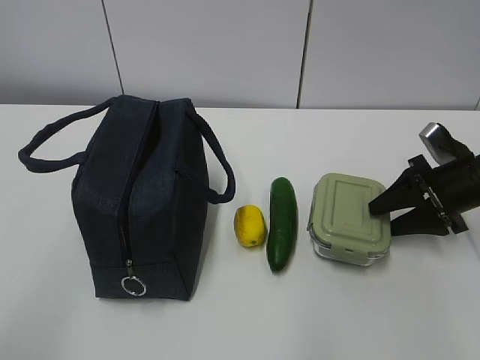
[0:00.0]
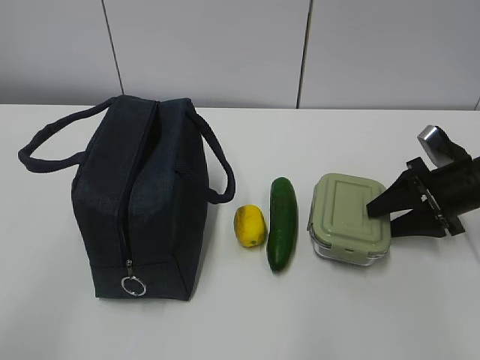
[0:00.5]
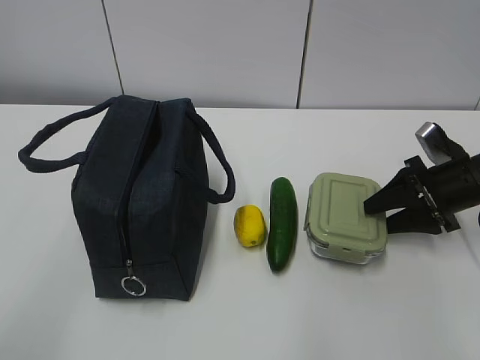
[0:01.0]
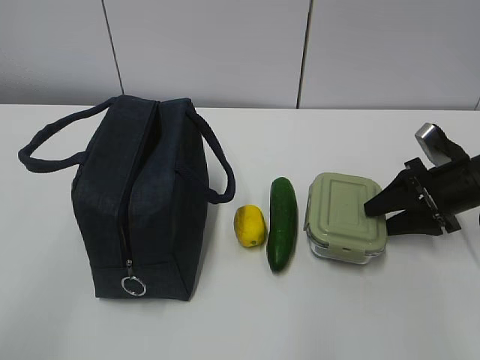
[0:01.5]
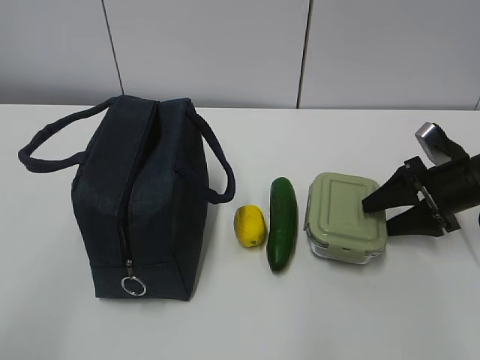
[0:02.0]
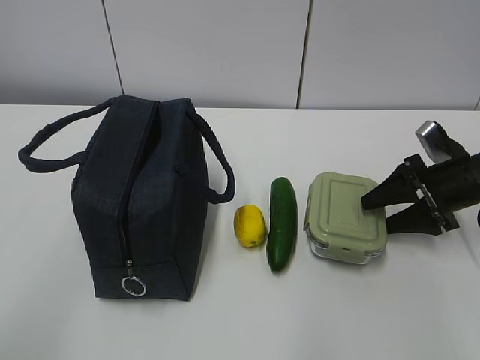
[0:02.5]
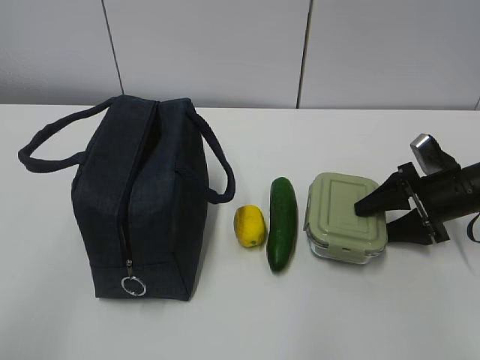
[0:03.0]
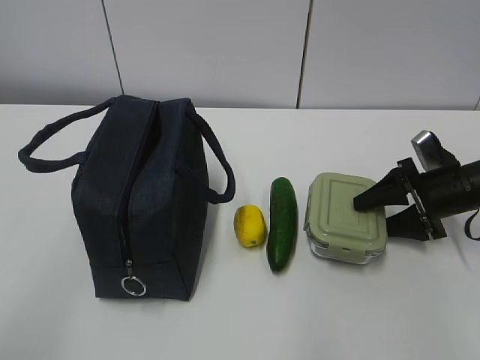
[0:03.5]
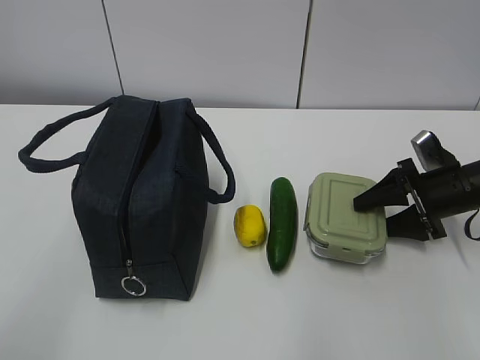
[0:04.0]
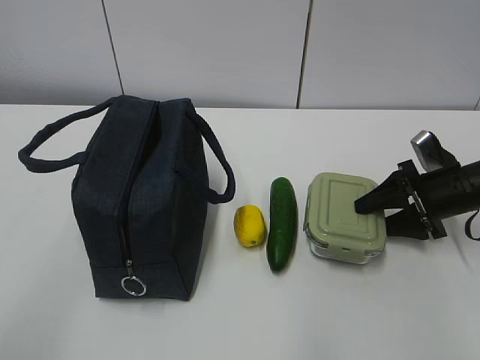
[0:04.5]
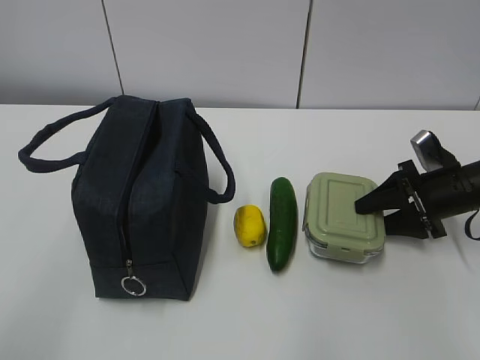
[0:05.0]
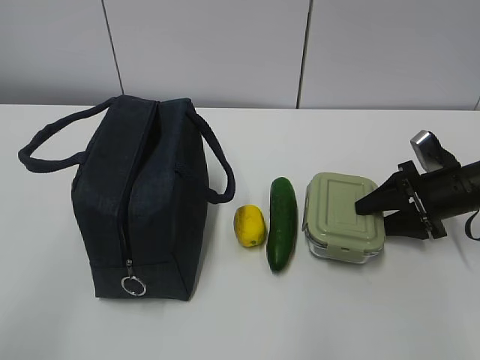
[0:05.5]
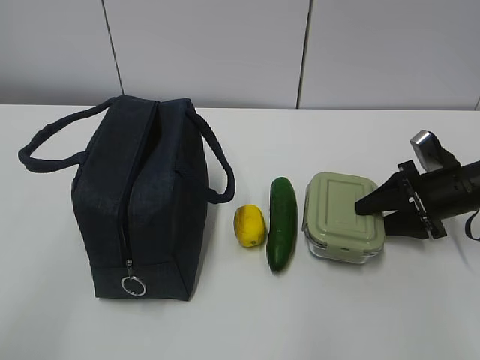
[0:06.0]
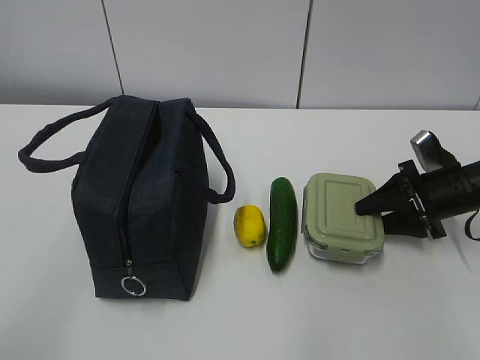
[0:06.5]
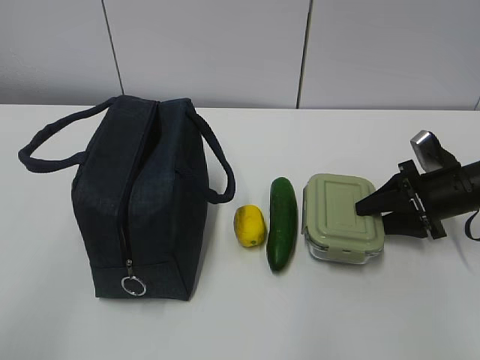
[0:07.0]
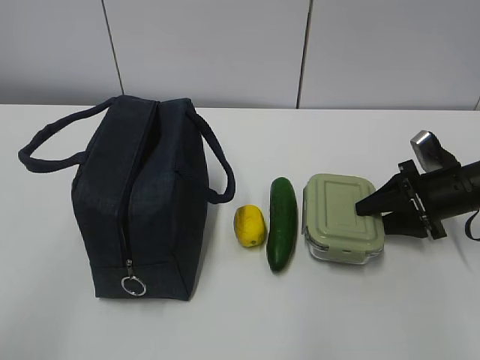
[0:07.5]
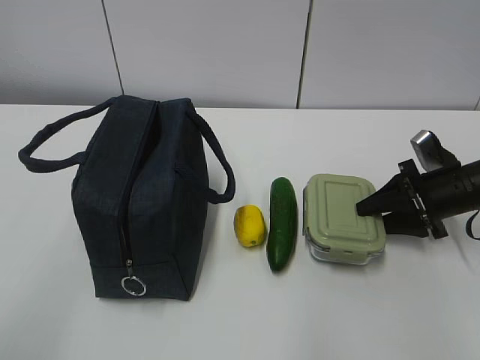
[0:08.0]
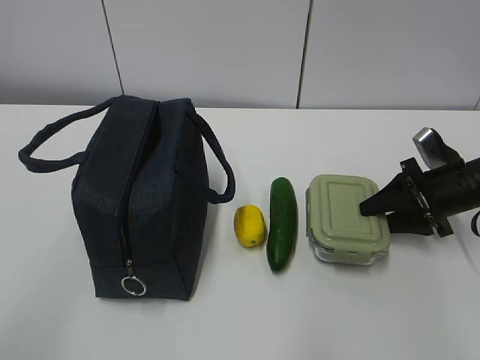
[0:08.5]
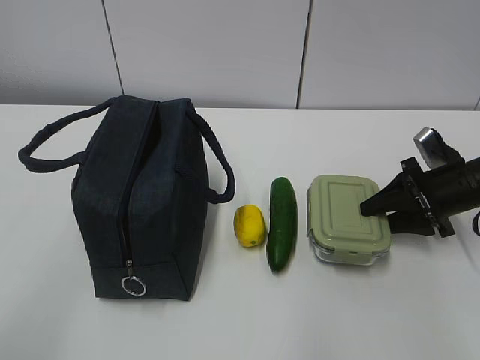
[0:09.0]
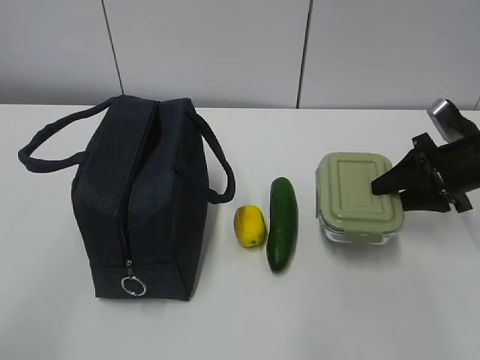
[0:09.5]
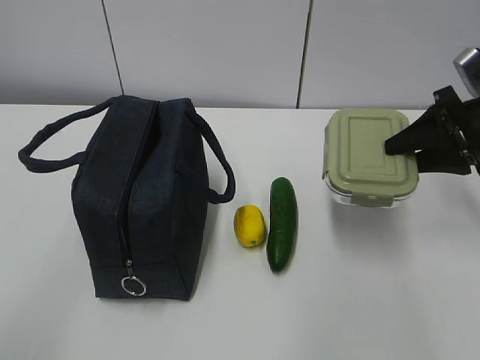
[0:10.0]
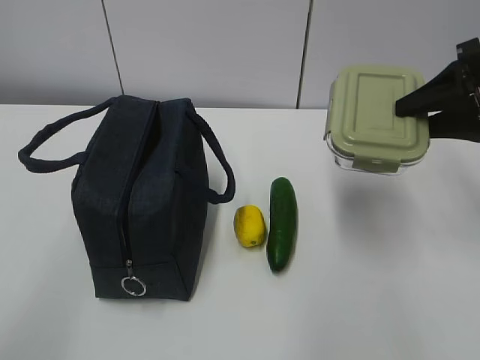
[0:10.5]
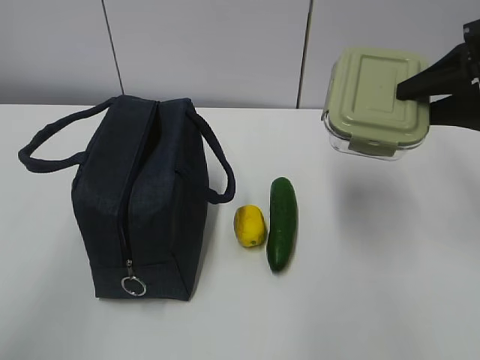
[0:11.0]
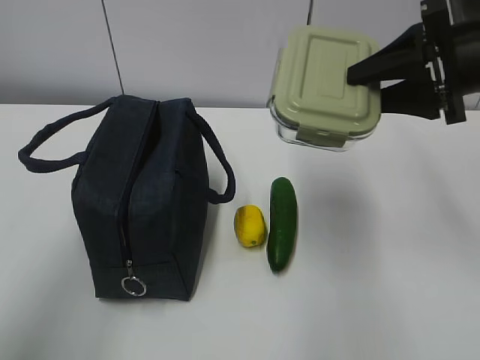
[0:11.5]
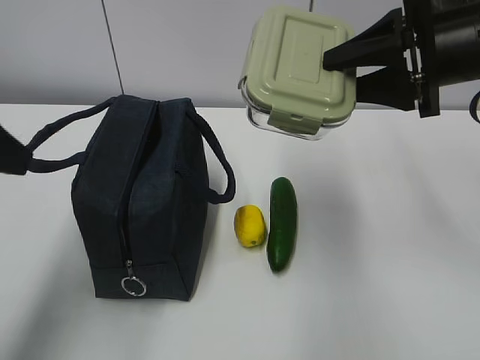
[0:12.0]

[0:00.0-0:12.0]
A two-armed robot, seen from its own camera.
Step, 0:00.0 to 0:07.5: Grasp the box with the right gripper.
0:00.0 to 0:02.0: Neither gripper changes place.
0:02.0 to 0:04.0: The grippers stay close to where they were, moving slightly.
0:04.0 to 0:08.0: The two grippers keep their place.
0:08.0 to 0:10.0: The right gripper moves upward, about 10 cm.
0:10.0 to 0:12.0: The right gripper heads upward and to the left, covering roughly 15 cm. The left gripper goes some 20 cm forward.

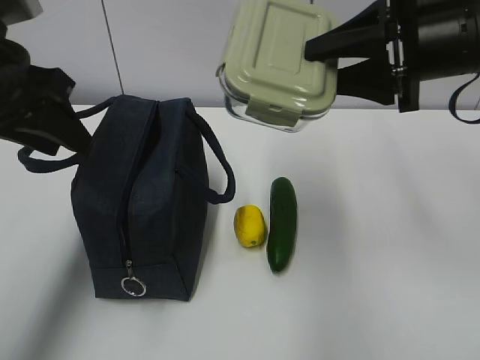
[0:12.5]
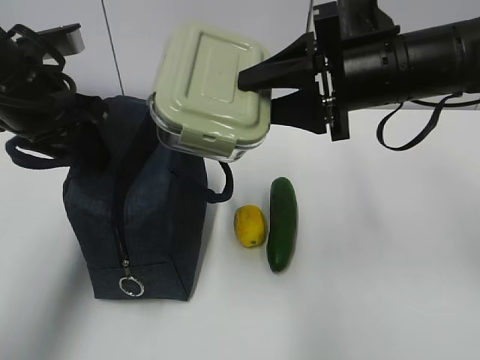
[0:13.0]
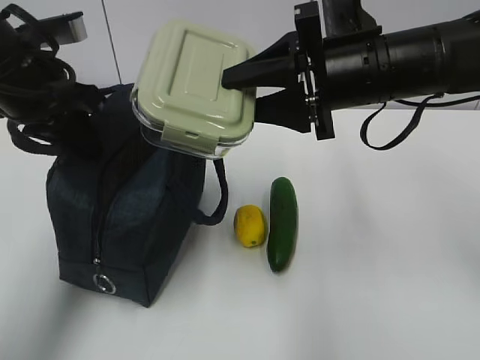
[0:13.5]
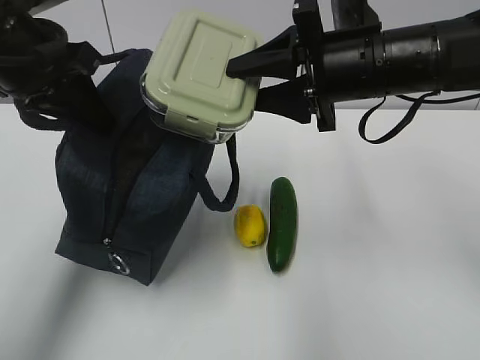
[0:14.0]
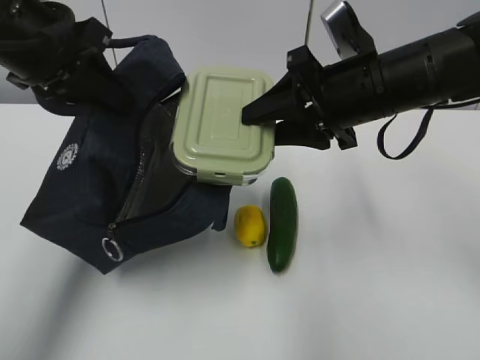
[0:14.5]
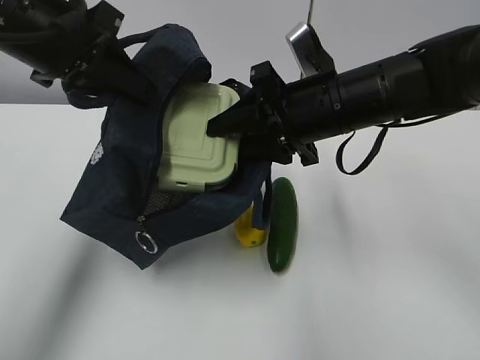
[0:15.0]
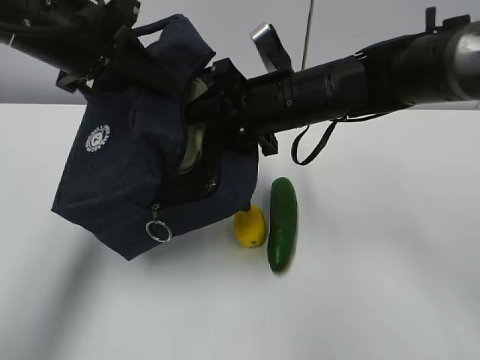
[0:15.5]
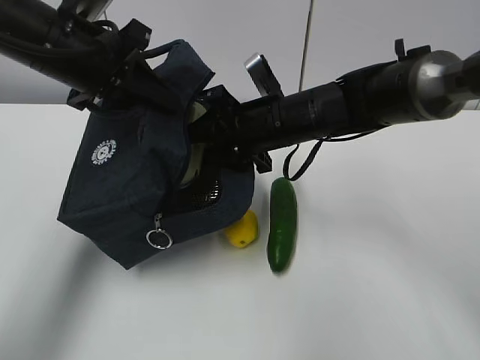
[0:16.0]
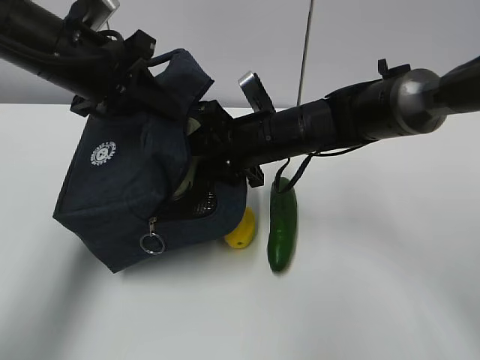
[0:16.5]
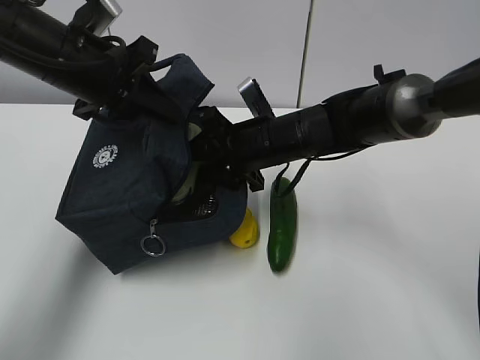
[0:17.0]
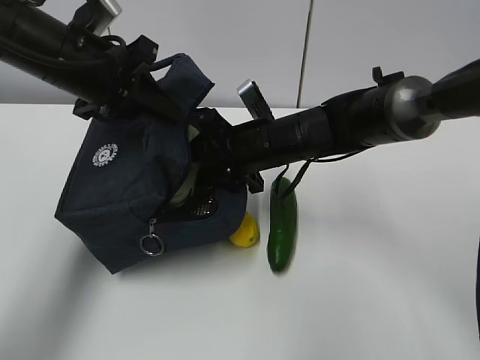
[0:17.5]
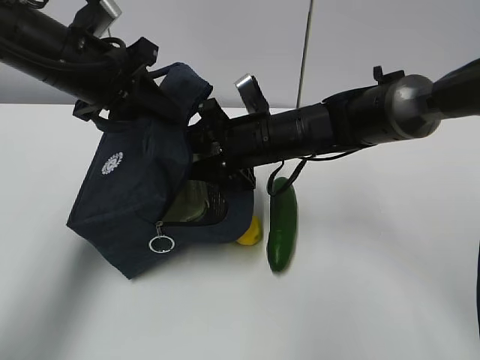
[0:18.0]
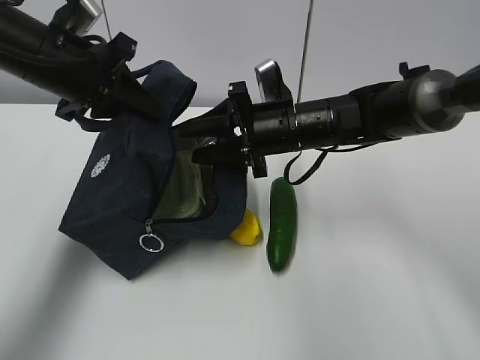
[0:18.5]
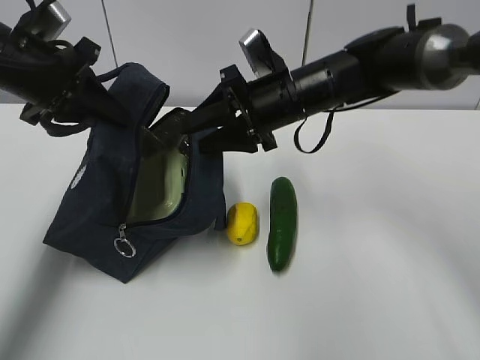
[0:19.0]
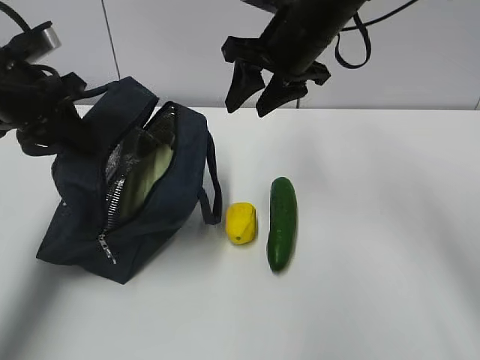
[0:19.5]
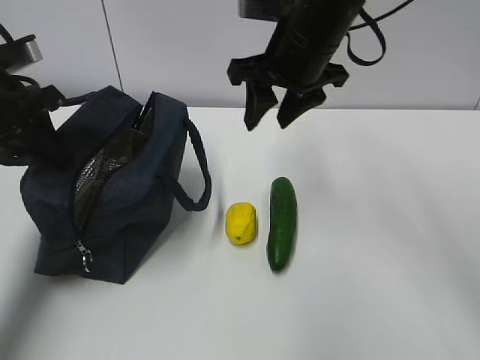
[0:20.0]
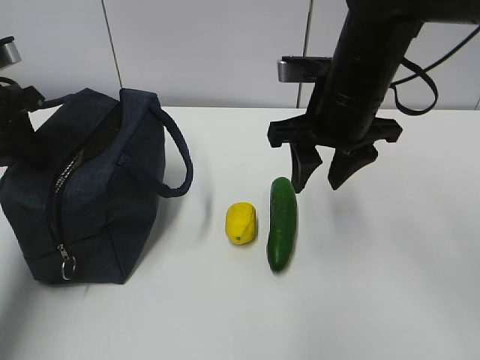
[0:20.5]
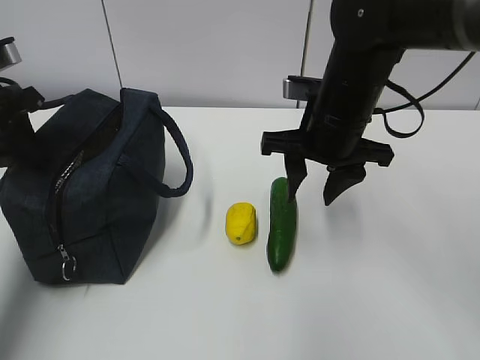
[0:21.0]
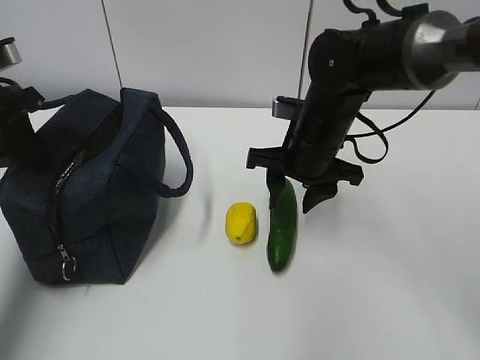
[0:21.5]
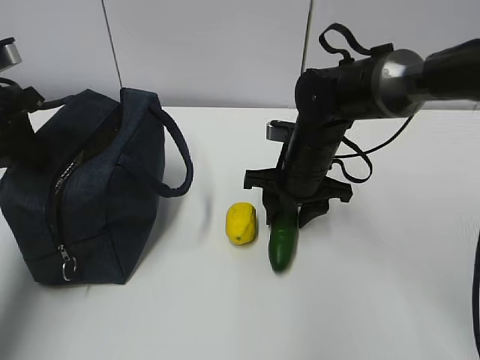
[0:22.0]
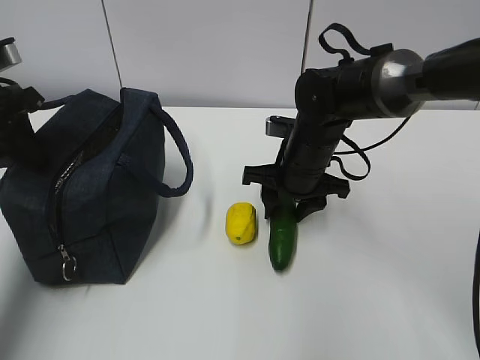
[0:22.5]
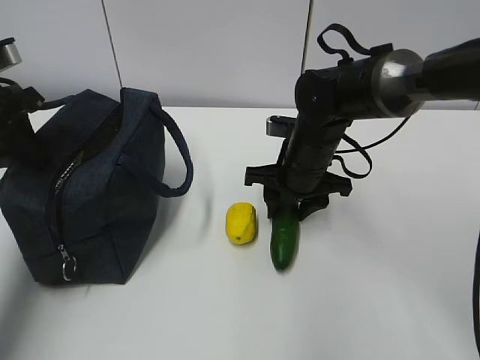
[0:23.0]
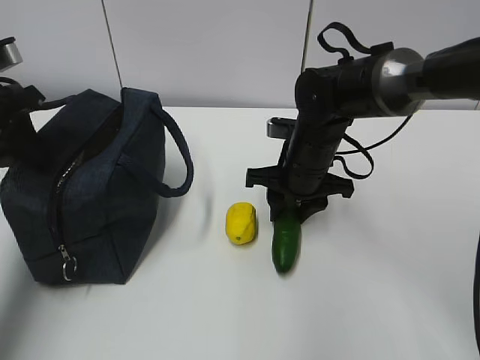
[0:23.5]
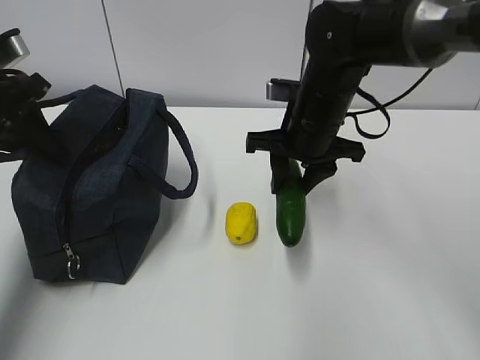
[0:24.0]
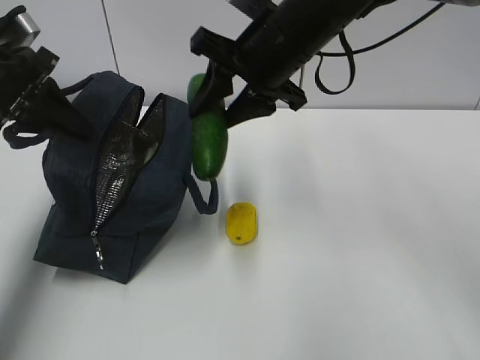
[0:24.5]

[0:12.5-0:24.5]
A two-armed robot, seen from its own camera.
Step, 0:12.5 to 0:18.5: Place the box into the package with the right gripper.
Step, 0:19.0 to 0:23.0: Grasp the cucumber with the right gripper.
0:12.5 to 0:14.5: The right gripper moves to the left and downward, approximately 10 cm. Meanwhile the left gripper closes its fingers.
0:14.5 to 0:16.5: The right gripper is displaced downward, to the left and forward by some 15 cm. The left gripper ends up approximately 5 cm from where it was.
0:16.5 to 0:18.5: The grippers move only a little.
0:18.5 to 0:20.5: The right gripper goes roughly 10 cm upward and backward, while the left gripper is displaced to the left by approximately 10 cm.
0:20.5 to 0:22.5: The right gripper shifts some 15 cm downward and forward.
0:22.5 to 0:24.5: The right gripper goes roughly 15 cm upward.

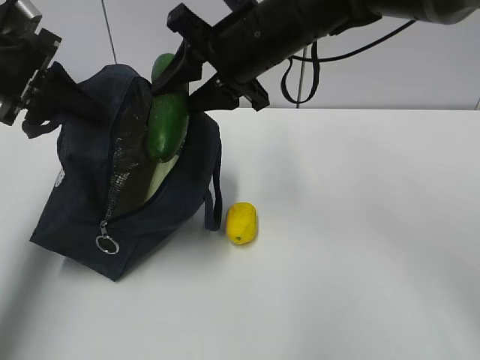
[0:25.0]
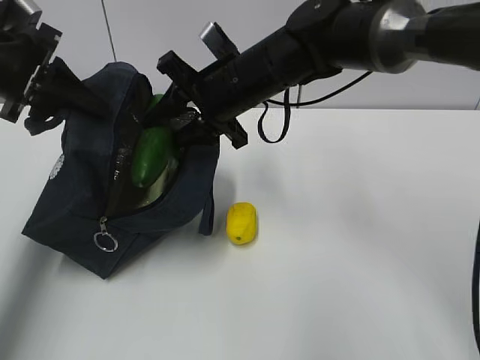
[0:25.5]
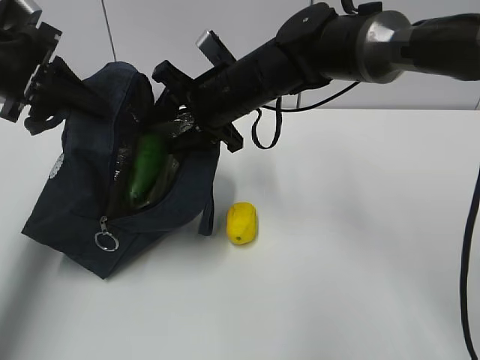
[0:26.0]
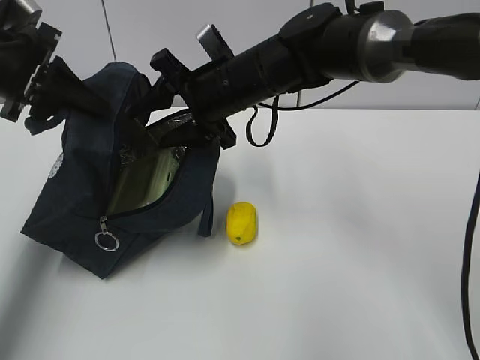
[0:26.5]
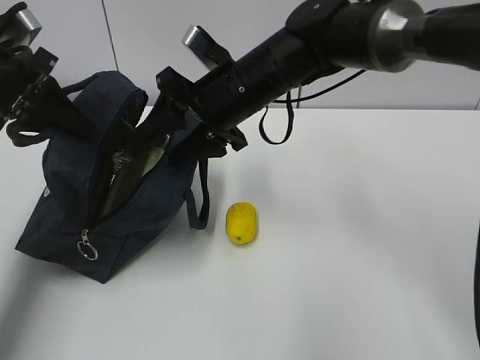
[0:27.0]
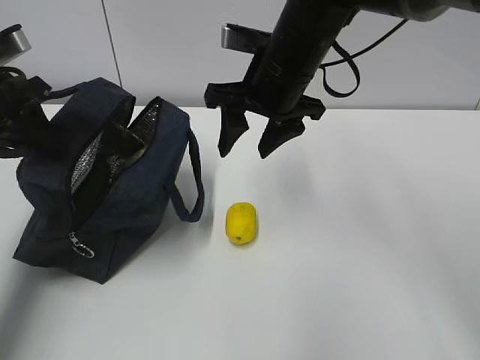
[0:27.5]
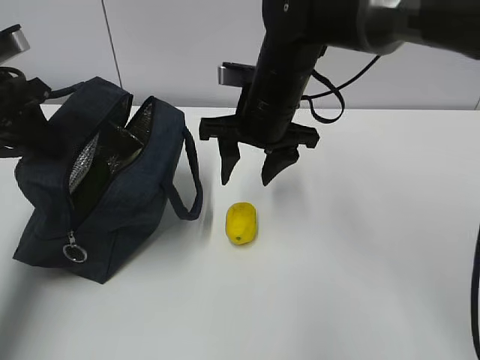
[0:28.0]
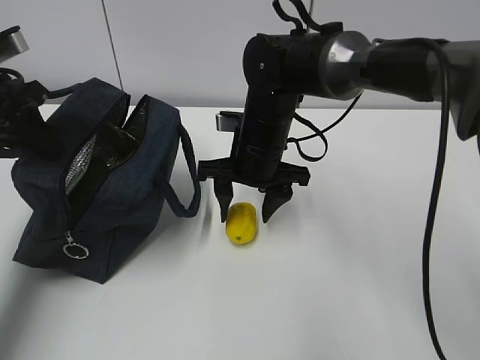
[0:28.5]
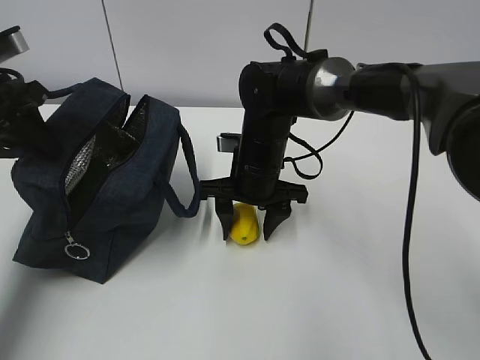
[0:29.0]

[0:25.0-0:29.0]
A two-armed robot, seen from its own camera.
Step, 0:25.0 to 0:27.0: Place the cucumber into the package with the right gripper.
0:25.0 to 0:27.0: The right gripper moves downward, roughly 5 cm.
0:27.0 to 0:29.0: The right gripper moves downward, some 10 cm.
